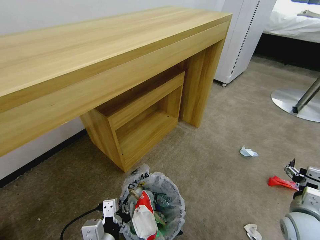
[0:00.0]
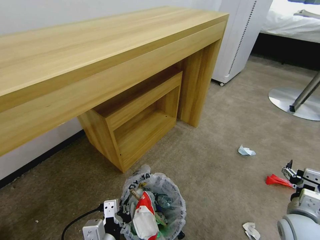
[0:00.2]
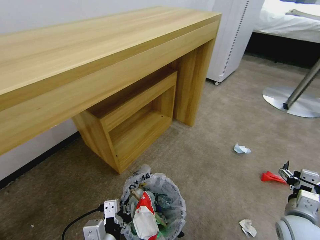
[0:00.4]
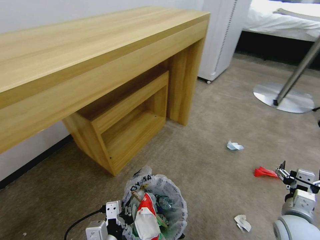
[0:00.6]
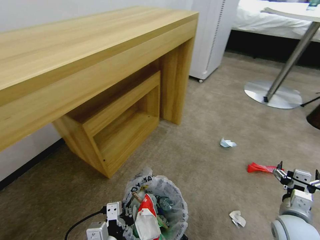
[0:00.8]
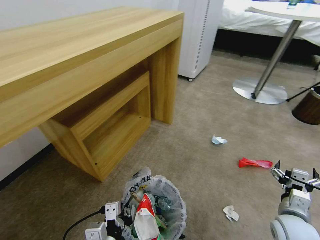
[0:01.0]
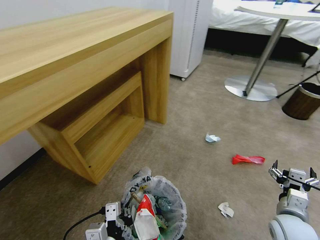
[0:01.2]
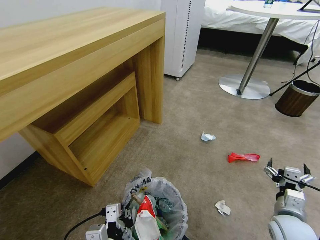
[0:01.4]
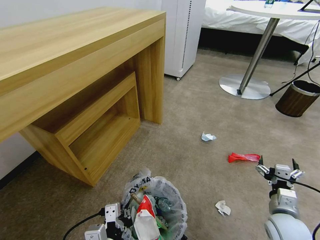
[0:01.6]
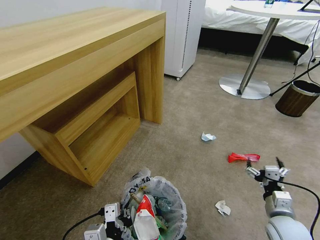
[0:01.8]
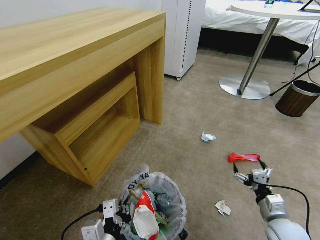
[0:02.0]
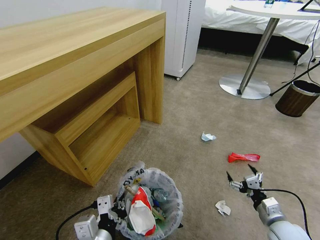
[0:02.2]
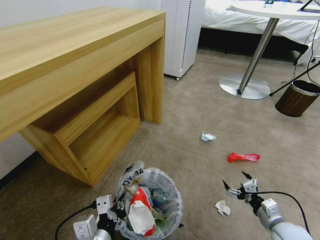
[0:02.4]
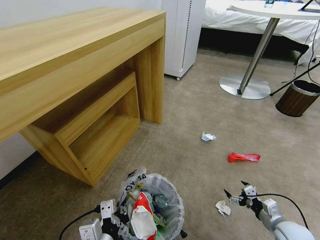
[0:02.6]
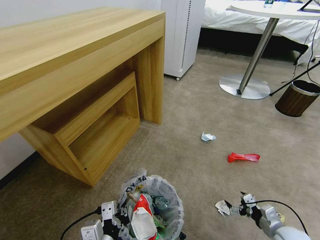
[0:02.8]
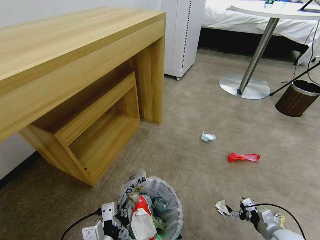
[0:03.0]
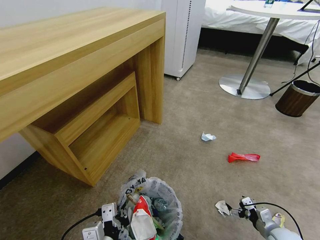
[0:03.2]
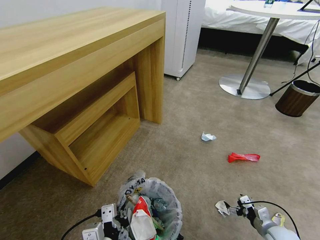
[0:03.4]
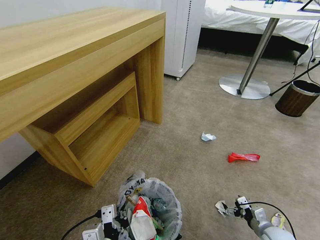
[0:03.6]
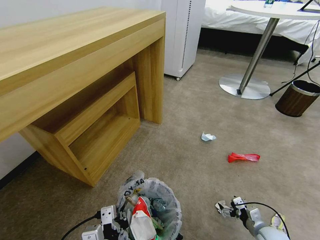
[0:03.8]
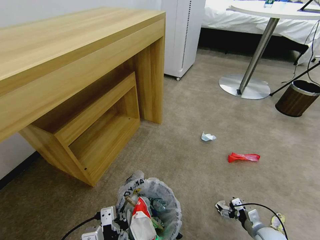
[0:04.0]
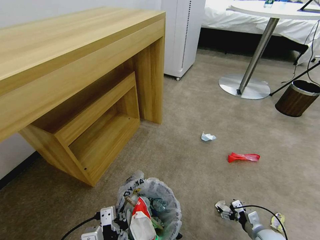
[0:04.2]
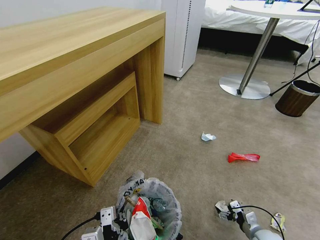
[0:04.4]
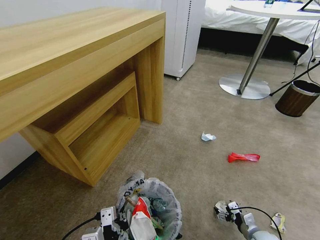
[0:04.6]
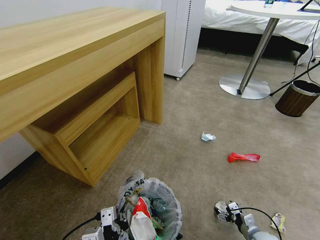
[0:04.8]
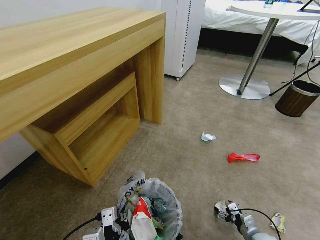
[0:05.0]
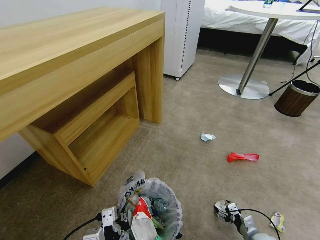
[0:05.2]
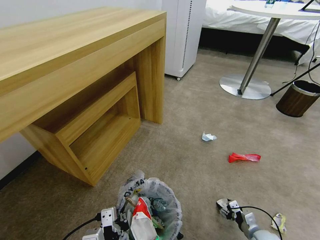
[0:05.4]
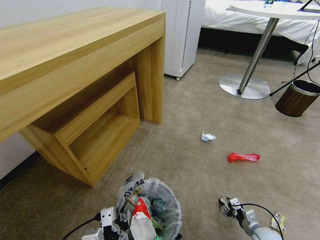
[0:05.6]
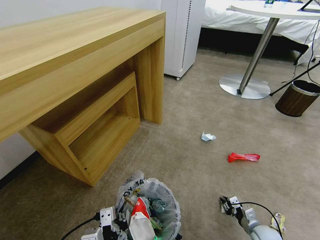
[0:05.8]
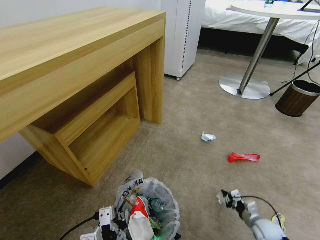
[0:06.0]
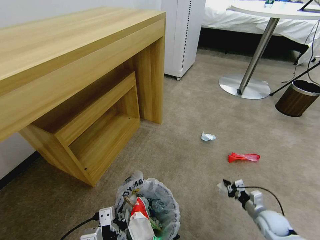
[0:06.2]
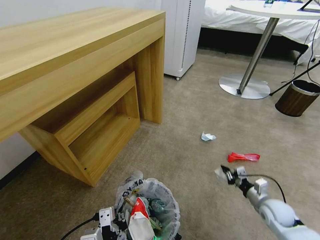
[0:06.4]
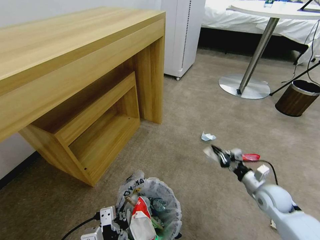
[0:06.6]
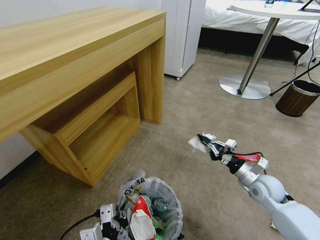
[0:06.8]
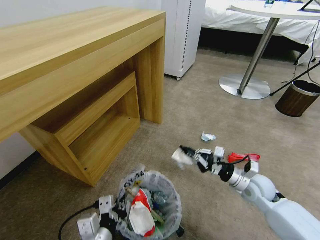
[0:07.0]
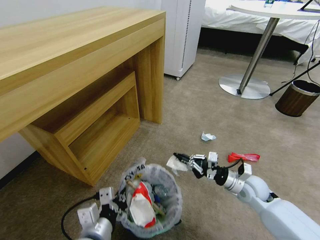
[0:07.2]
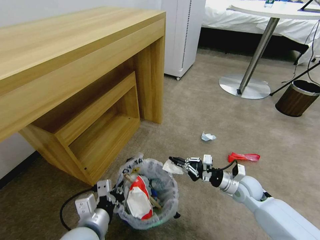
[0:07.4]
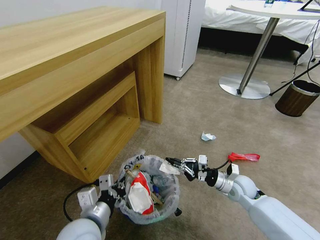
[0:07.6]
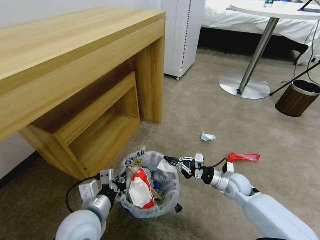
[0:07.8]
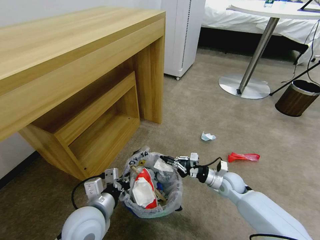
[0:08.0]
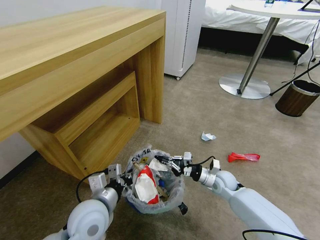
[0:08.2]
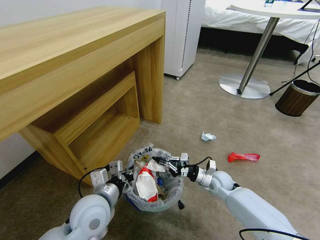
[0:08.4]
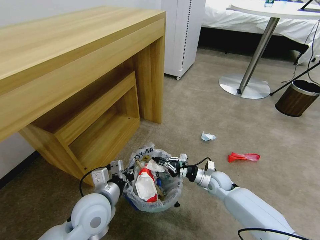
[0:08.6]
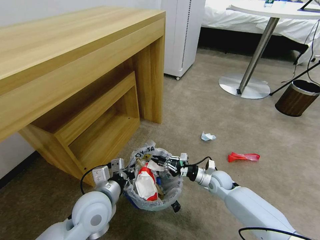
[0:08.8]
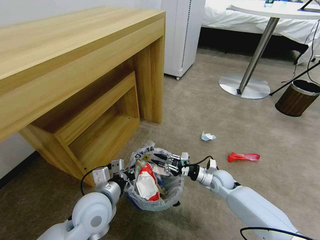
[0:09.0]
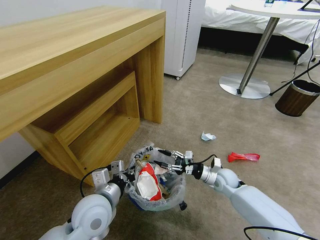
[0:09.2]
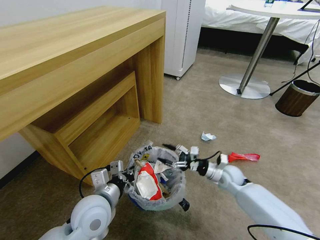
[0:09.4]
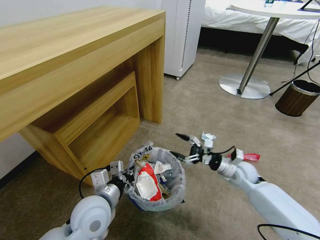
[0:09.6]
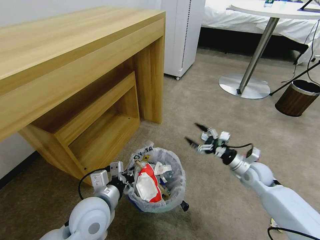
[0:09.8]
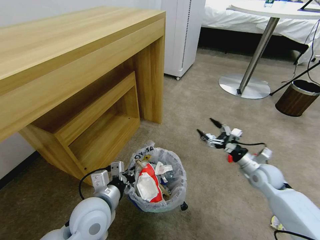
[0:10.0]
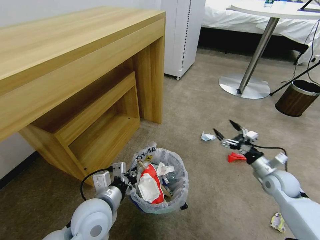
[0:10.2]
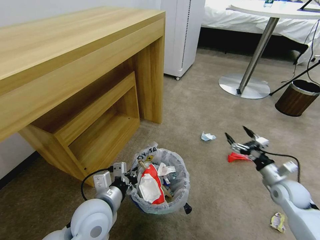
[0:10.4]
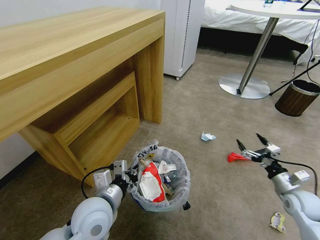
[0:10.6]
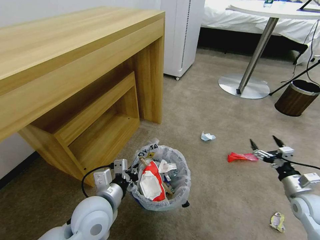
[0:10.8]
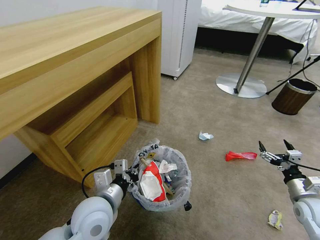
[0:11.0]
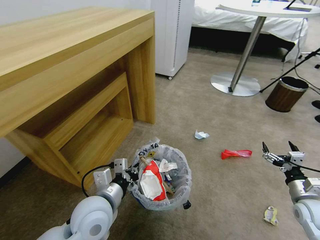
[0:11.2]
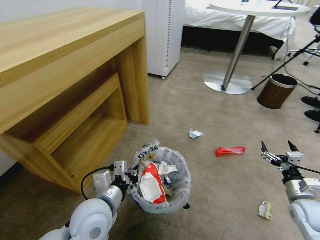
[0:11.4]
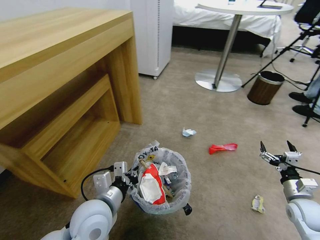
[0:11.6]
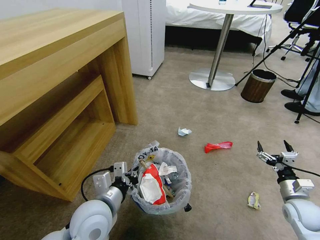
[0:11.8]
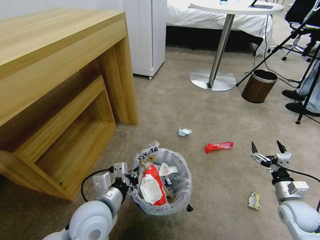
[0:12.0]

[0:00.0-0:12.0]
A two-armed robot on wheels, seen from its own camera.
Task of the whole recording: Pick up the trash bin and place the garbage on the floor into it.
0:01.6 to 0:03.0: The right gripper travels downward and to the right by approximately 15 cm.
0:03.0 to 0:04.4: The right gripper moves downward, roughly 5 cm.
0:04.4 to 0:06.0: The right gripper closes up.
0:06.0 to 0:07.6: The left gripper goes approximately 10 cm forward. The right gripper is displaced upward, to the left and forward by some 25 cm.
0:07.6 to 0:09.0: The right gripper moves approximately 10 cm, and opens, while the left gripper goes some 5 cm forward.
0:09.0 to 0:10.4: The right gripper moves to the right and backward, some 20 cm, and opens.
0:10.4 to 0:12.0: The right gripper moves backward, some 5 cm.

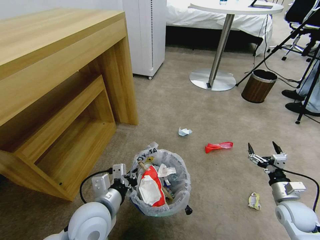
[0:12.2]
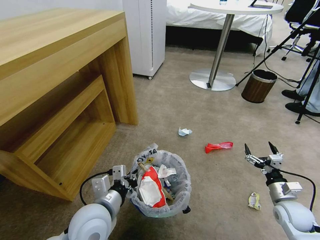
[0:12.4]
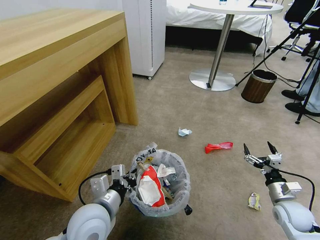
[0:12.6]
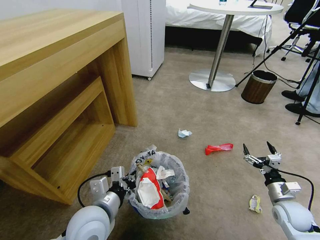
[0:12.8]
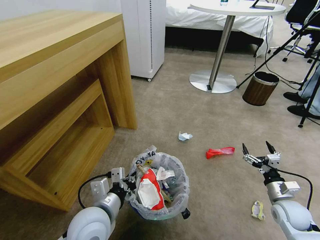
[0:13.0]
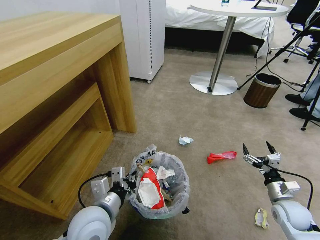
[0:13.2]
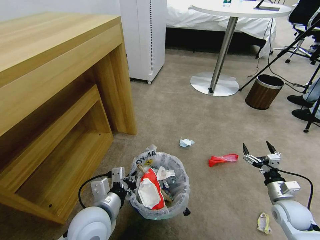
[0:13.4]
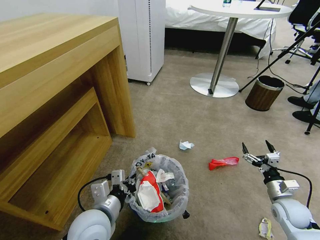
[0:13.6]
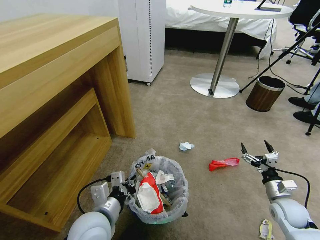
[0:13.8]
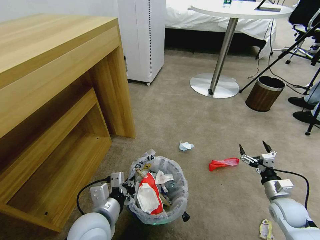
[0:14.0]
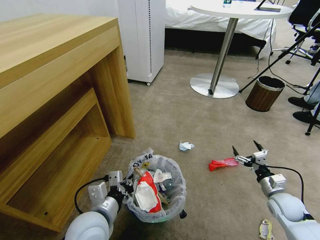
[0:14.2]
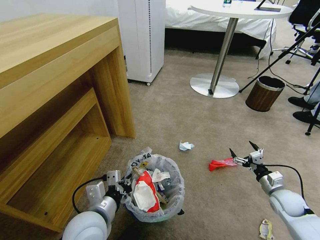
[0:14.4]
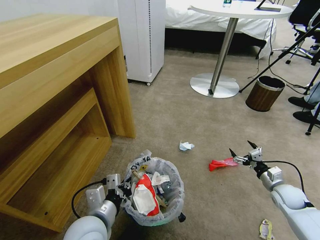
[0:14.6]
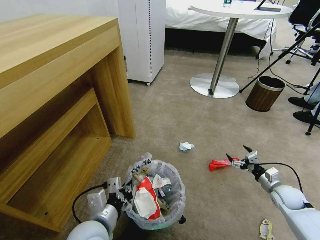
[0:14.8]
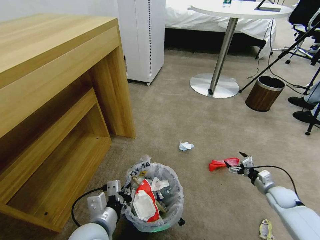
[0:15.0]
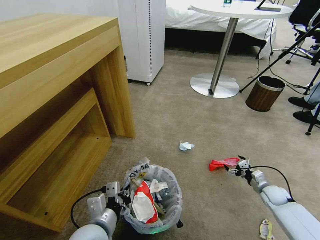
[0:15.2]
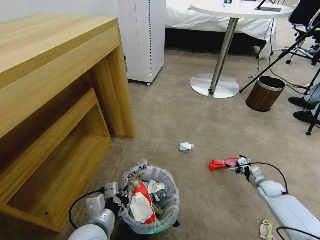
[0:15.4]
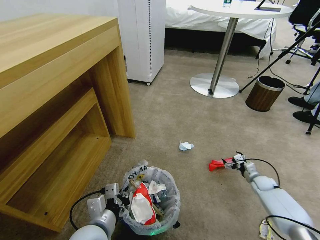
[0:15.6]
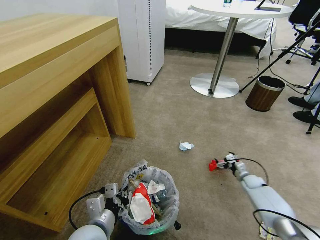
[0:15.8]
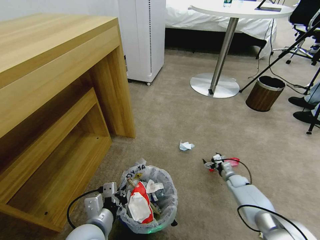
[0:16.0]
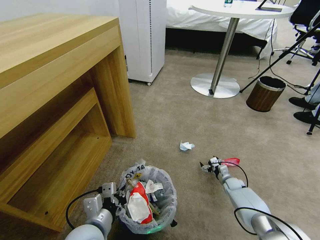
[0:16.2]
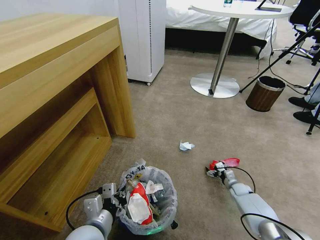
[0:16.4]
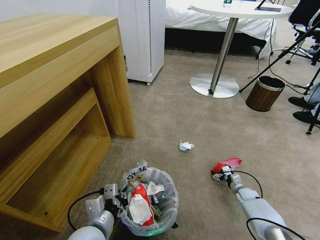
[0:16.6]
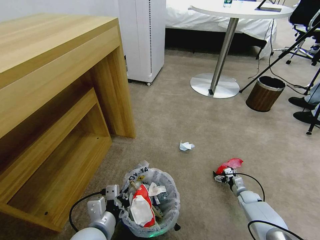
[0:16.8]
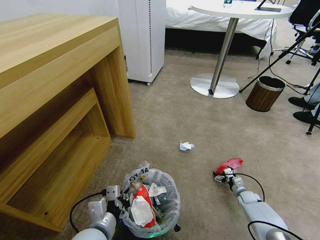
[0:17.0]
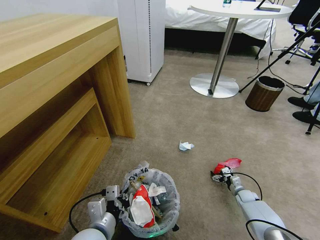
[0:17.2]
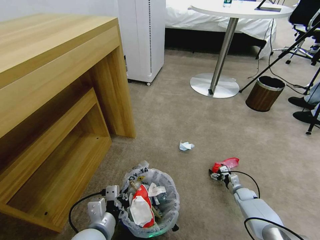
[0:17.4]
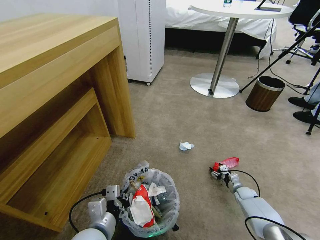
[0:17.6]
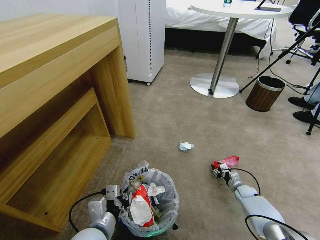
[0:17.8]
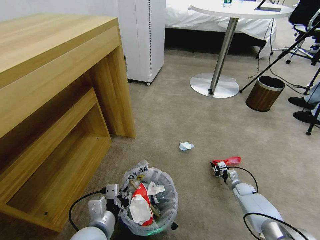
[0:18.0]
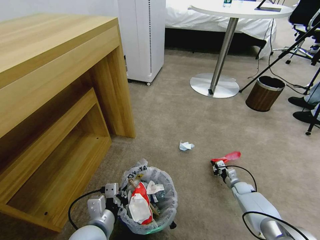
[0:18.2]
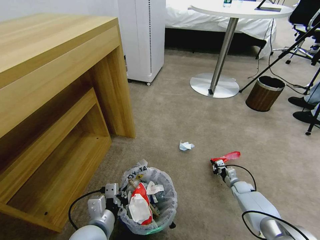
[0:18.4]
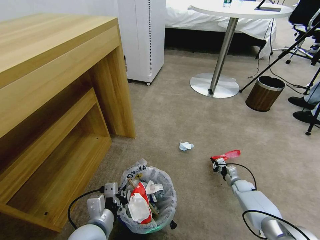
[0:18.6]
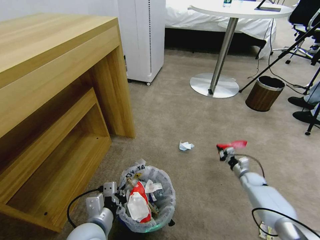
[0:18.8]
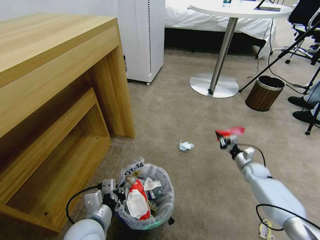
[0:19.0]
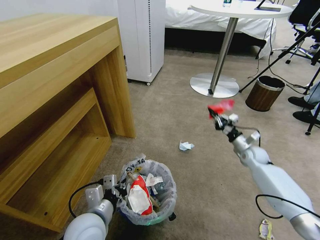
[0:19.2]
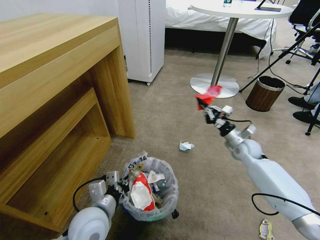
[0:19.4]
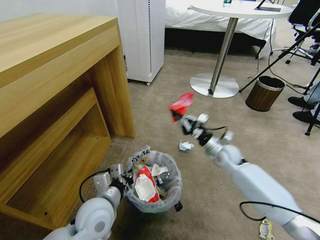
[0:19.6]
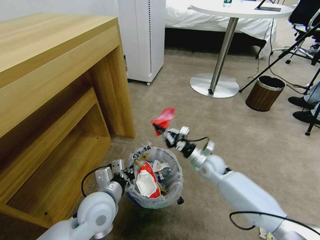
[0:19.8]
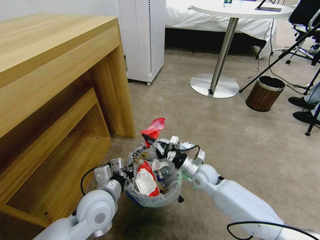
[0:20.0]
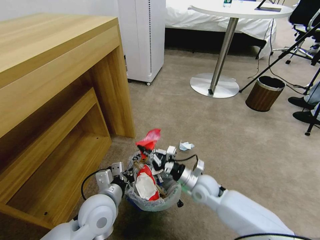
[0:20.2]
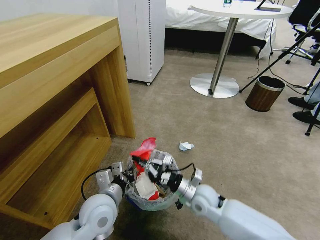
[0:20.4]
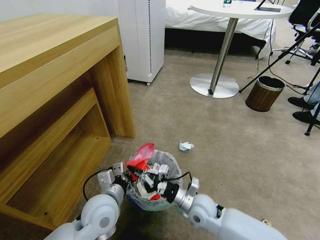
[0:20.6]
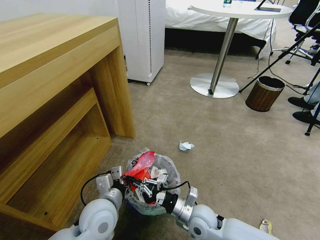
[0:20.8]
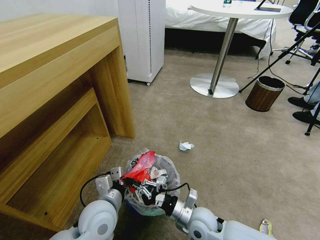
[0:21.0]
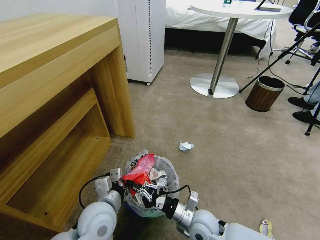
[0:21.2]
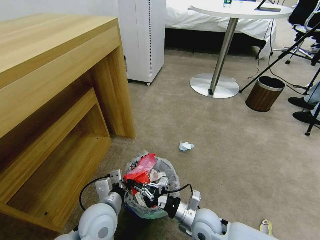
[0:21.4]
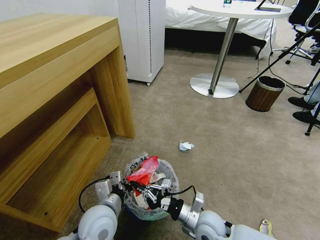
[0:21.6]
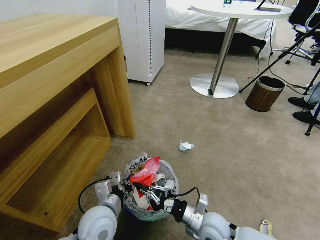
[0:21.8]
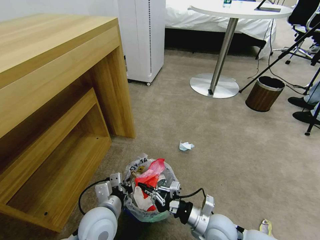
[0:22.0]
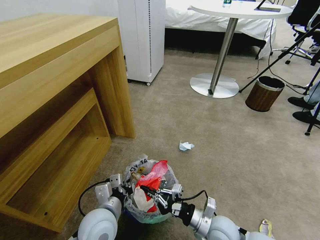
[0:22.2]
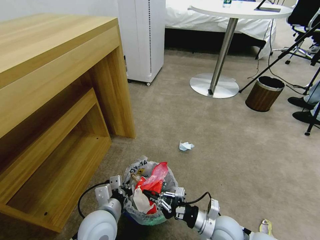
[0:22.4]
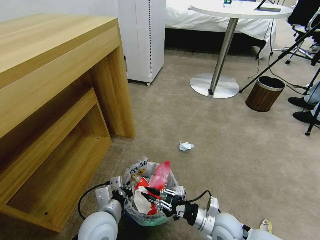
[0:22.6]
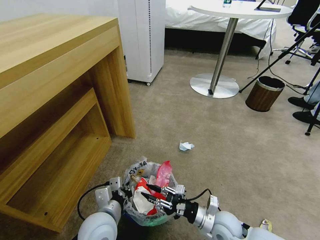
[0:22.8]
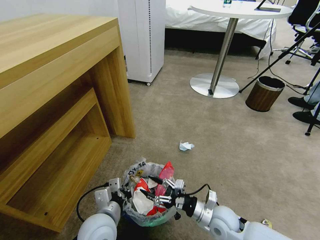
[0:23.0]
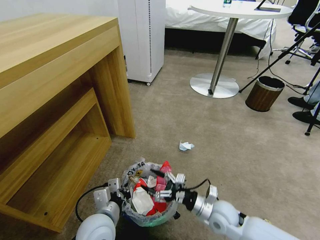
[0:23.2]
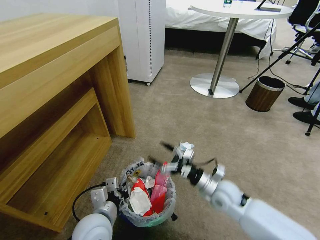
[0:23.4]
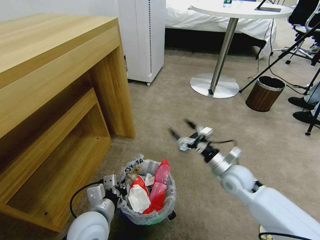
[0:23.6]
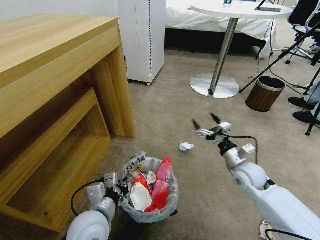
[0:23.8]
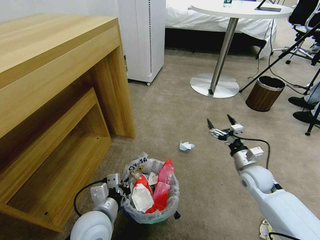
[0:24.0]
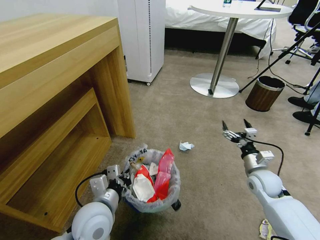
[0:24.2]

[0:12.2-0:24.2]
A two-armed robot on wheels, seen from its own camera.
Task of the whole recording: Pick up the trash bin and place the garbage on the floor into it.
0:13.8 to 0:15.2: The right gripper travels forward and downward by some 10 cm.
0:15.2 to 0:16.6: The right gripper is displaced downward and to the left by approximately 10 cm.
0:16.6 to 0:18.2: The right gripper closes up.
0:18.2 to 0:19.8: The right gripper heads to the left and upward, covering roughly 30 cm; the left gripper heads forward, covering approximately 10 cm.
0:19.8 to 0:21.2: The right gripper goes roughly 20 cm backward.
0:21.2 to 0:22.6: The right gripper shifts approximately 5 cm to the right.
0:22.6 to 0:24.2: The right gripper heads to the right, forward and upward, covering roughly 20 cm, and opens its fingers.
